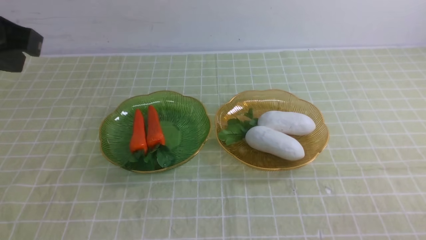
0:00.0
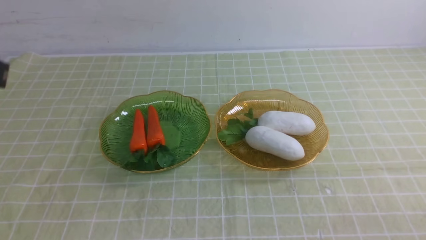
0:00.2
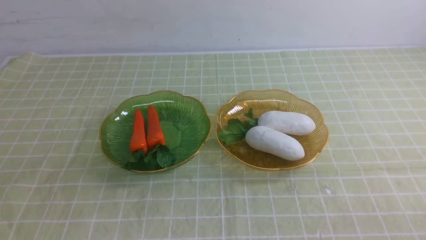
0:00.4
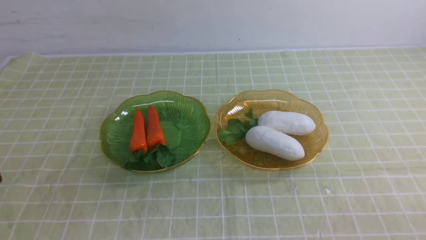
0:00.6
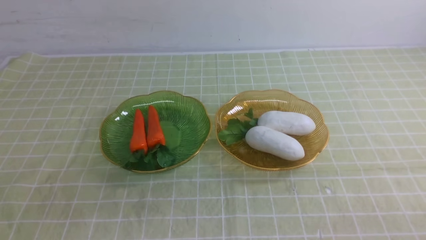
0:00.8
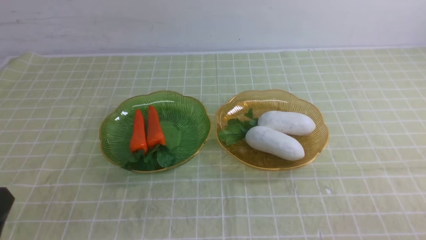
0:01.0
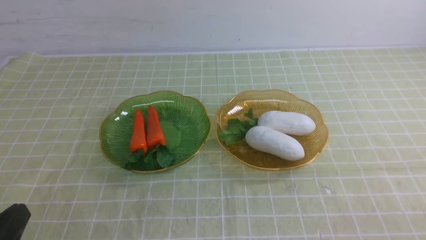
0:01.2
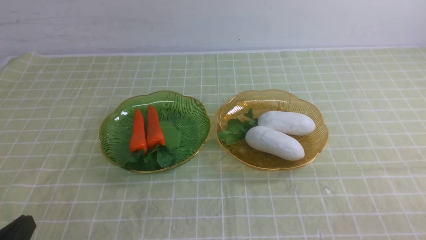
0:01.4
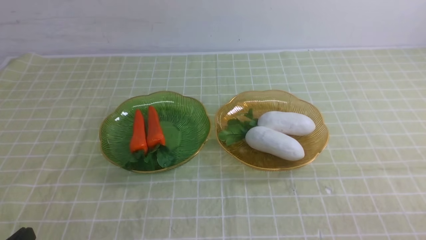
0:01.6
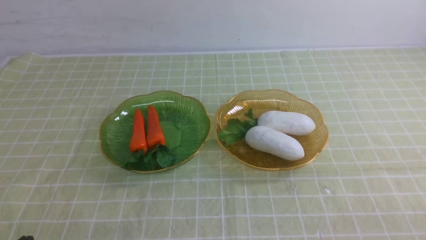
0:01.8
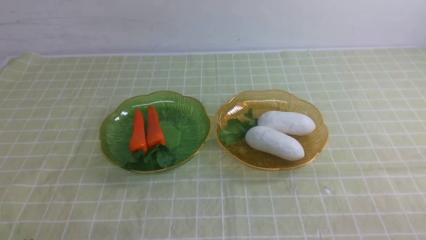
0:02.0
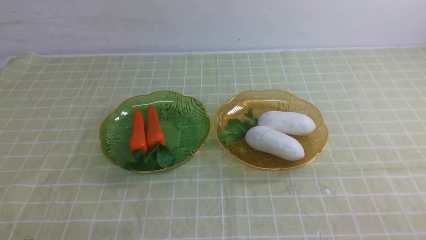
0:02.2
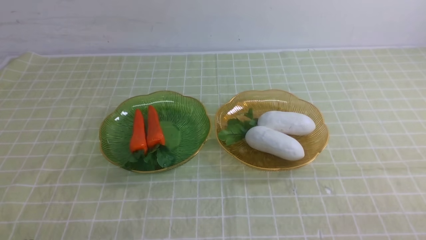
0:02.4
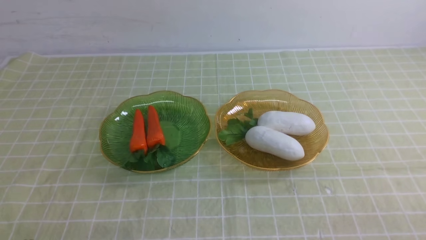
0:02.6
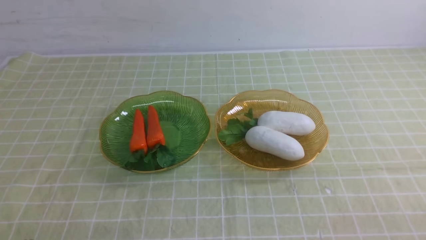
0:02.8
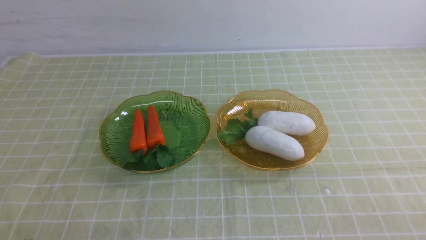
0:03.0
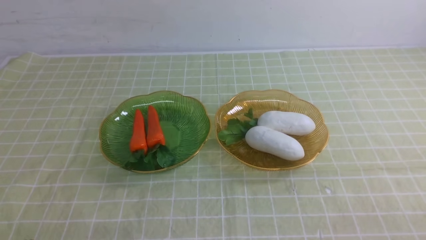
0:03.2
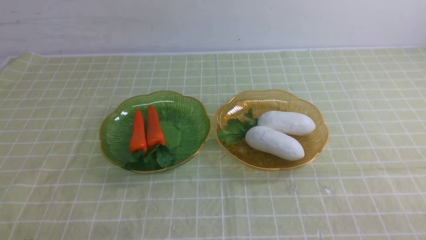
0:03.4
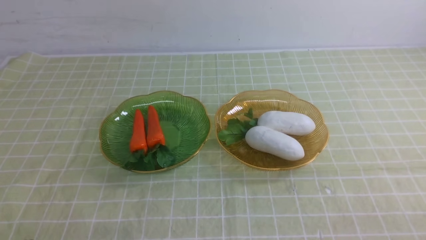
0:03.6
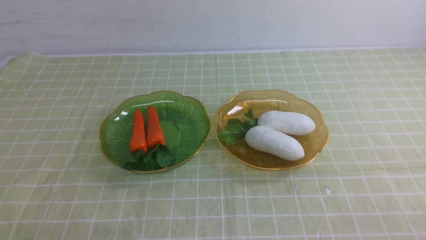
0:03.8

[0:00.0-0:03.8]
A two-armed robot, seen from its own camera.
0:00.0 to 0:01.2: The left gripper is displaced downward and backward by some 25 cm.
0:01.2 to 0:02.6: The left gripper shifts some 5 cm downward.
0:02.6 to 0:03.8: Both grippers stay put.
